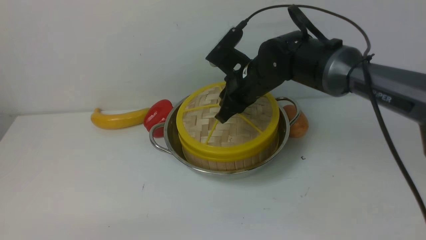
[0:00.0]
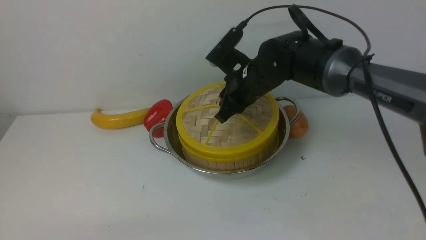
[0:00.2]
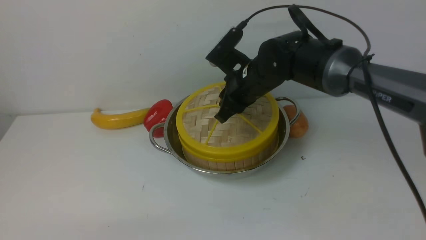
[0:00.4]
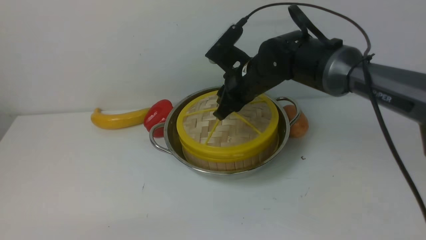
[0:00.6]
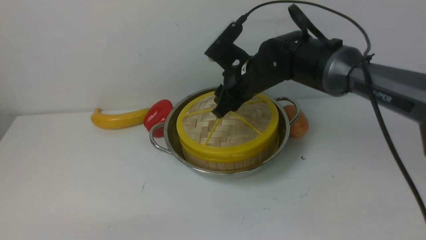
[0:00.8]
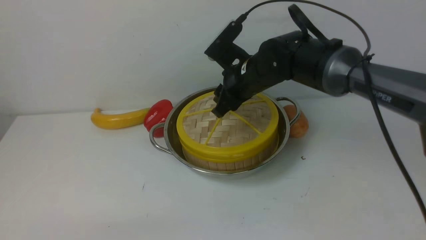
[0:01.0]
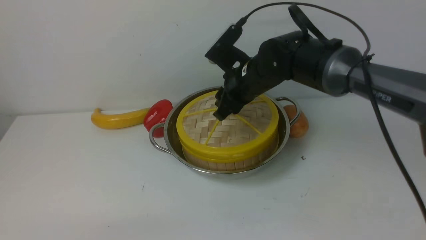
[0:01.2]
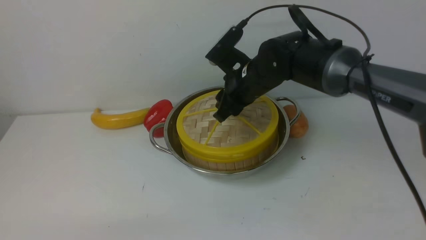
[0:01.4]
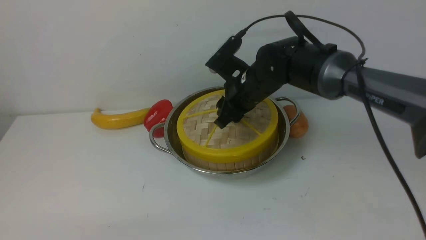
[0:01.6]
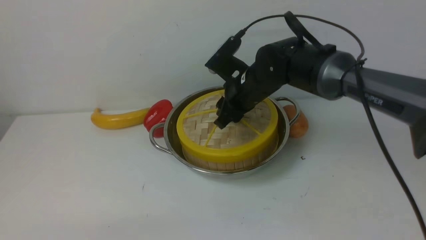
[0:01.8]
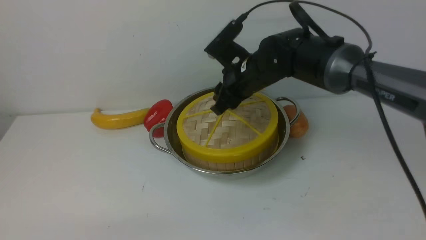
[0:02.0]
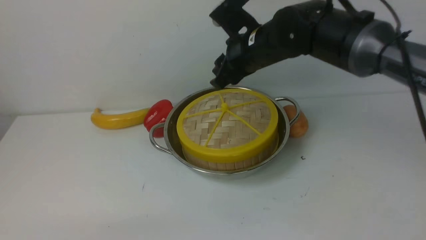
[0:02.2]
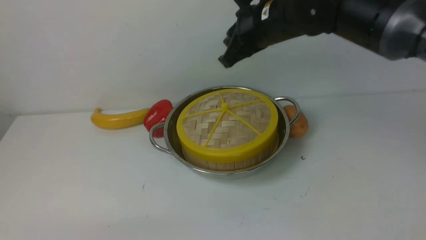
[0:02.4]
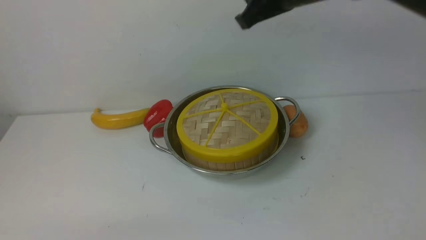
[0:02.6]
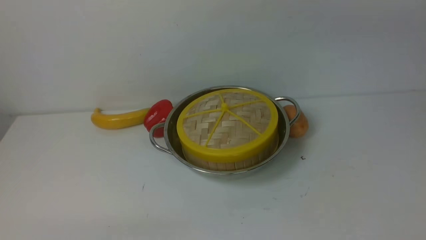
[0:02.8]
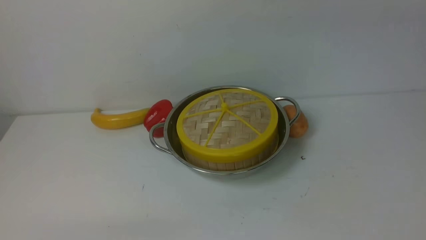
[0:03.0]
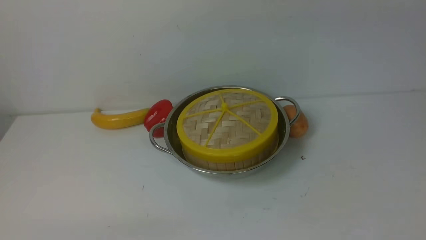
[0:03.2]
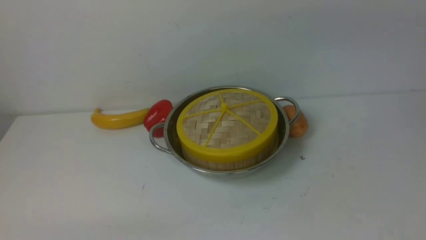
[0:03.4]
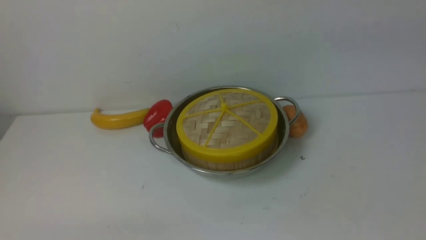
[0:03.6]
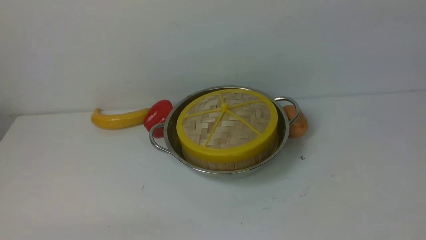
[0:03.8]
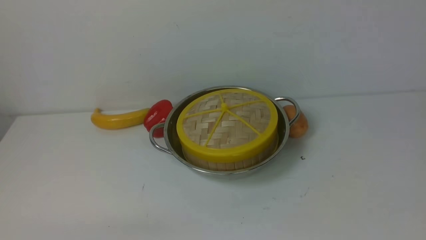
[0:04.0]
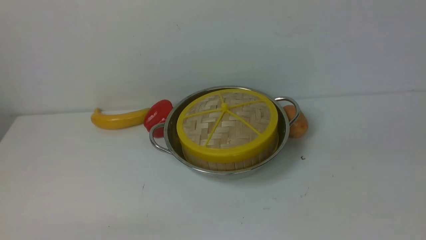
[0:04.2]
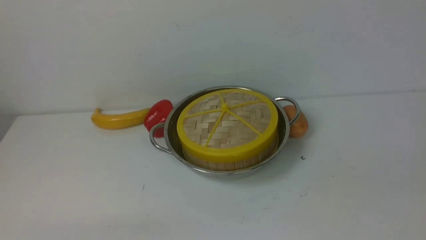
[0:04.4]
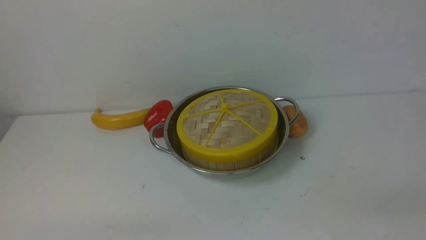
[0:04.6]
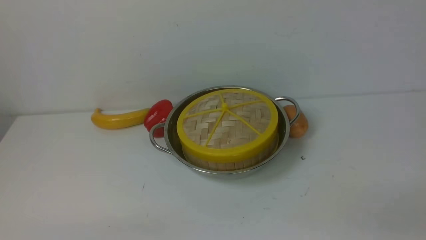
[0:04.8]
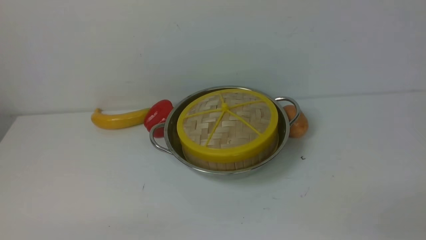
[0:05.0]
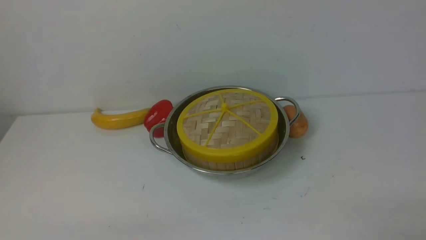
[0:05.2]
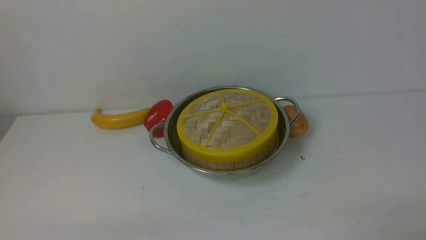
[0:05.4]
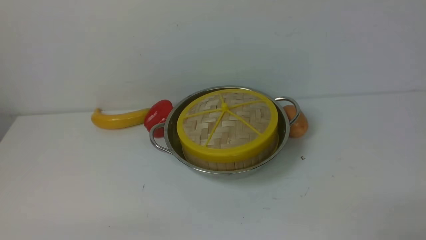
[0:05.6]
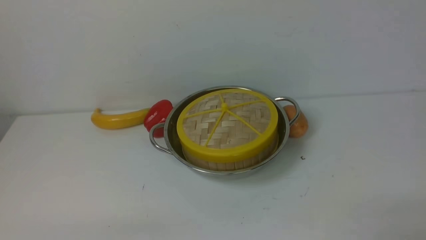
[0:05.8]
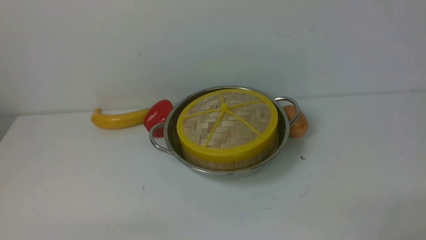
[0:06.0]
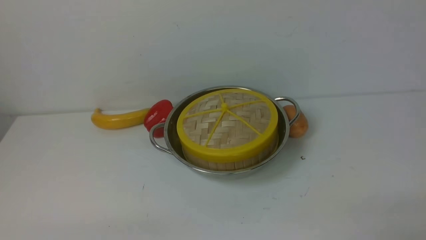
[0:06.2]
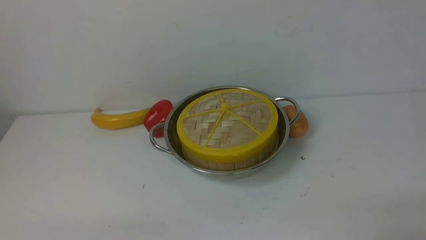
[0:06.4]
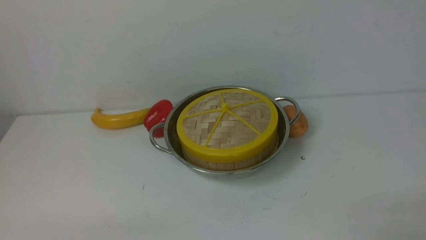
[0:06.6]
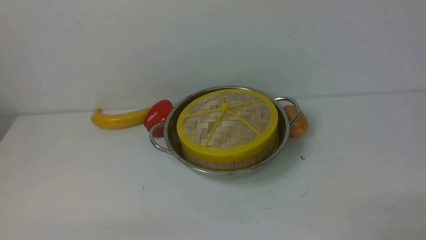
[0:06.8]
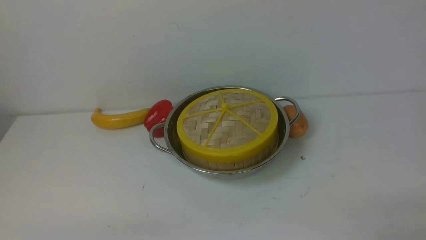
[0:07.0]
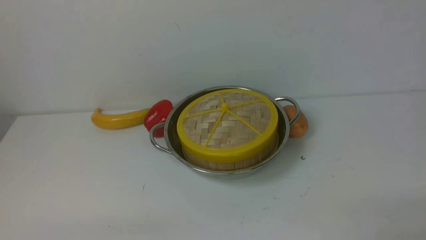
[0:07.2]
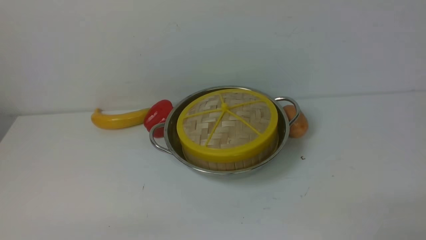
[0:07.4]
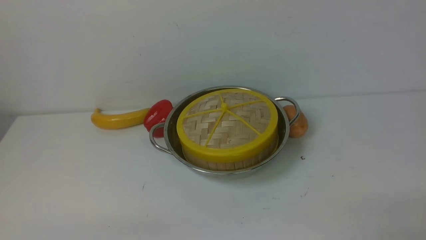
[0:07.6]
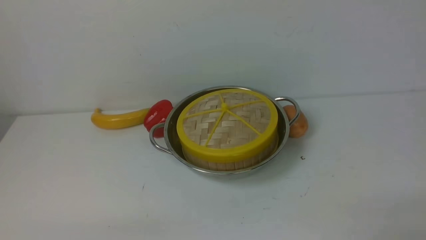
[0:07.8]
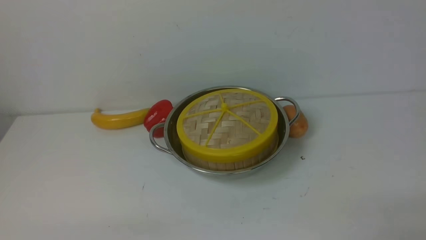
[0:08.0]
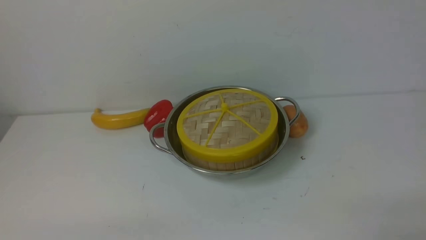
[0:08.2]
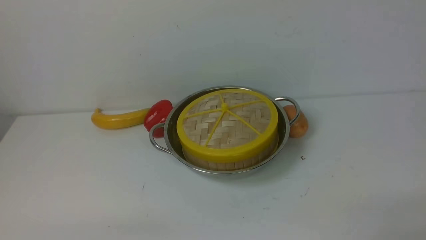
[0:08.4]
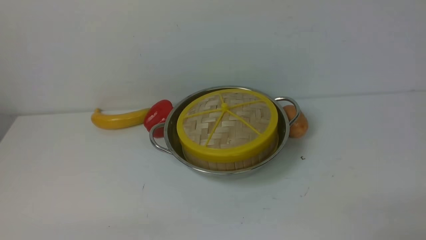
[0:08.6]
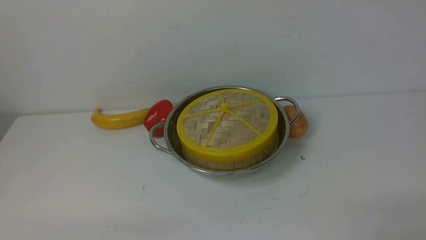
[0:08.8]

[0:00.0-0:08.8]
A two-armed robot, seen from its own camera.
Task of the whole recording: place the steamer in the pot on the white table, and put the lid on the steamer.
Step, 0:00.0 to 0:02.4: use the right arm to place the steamer lid on the steamer.
0:00.0 to 0:01.4: The right gripper opens its fingers.
0:01.4 to 0:03.0: The right gripper is displaced upward by some 25 cm, and closes its fingers.
0:05.8 to 0:08.8: The two grippers keep their place.

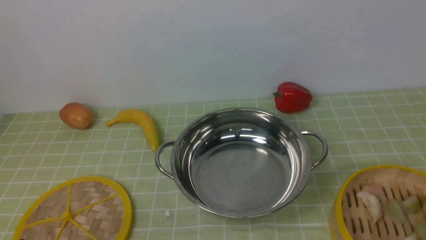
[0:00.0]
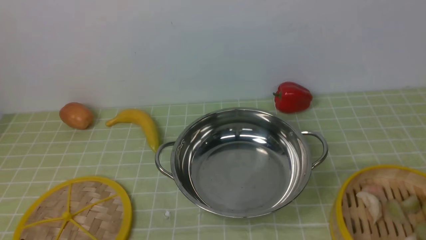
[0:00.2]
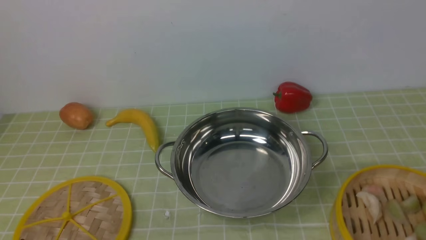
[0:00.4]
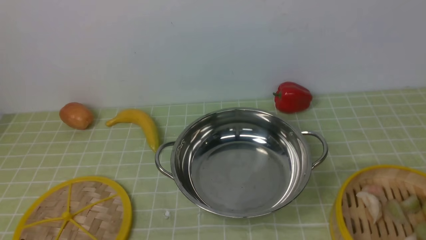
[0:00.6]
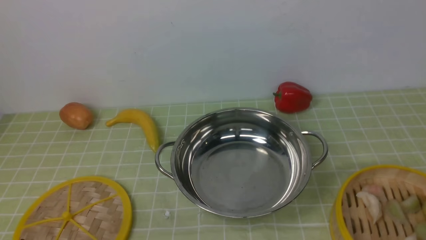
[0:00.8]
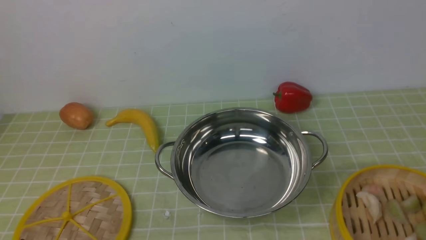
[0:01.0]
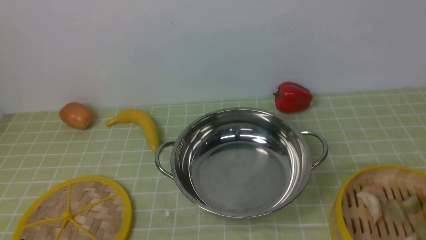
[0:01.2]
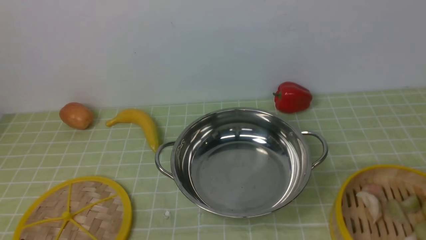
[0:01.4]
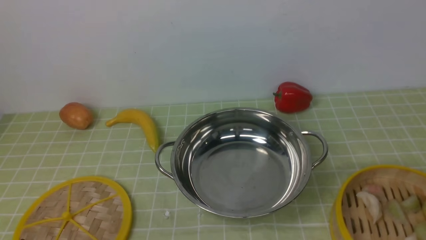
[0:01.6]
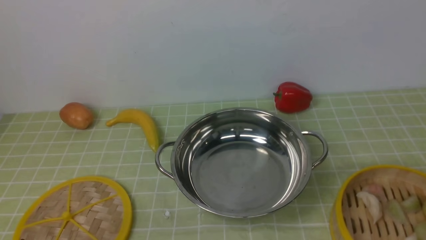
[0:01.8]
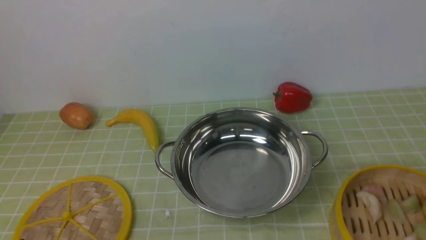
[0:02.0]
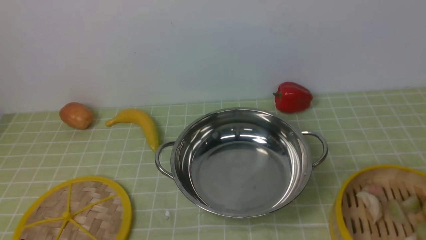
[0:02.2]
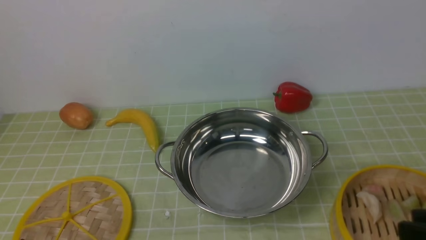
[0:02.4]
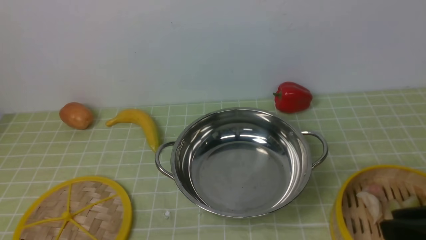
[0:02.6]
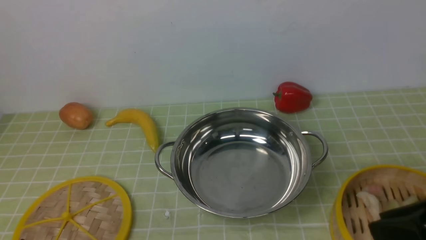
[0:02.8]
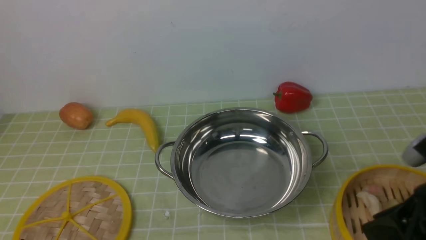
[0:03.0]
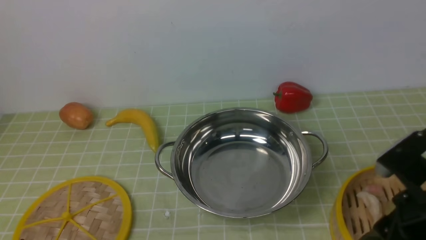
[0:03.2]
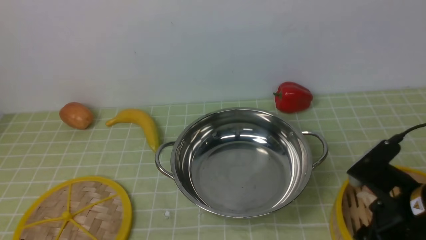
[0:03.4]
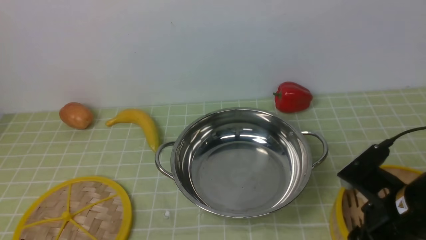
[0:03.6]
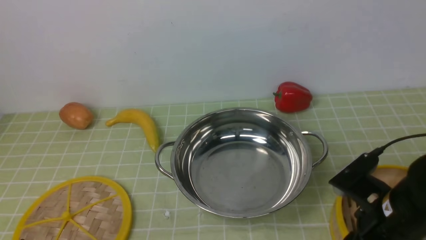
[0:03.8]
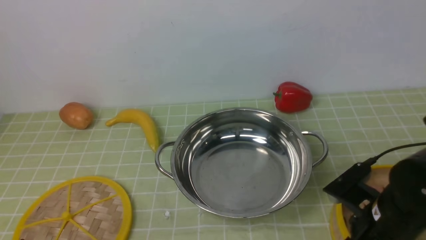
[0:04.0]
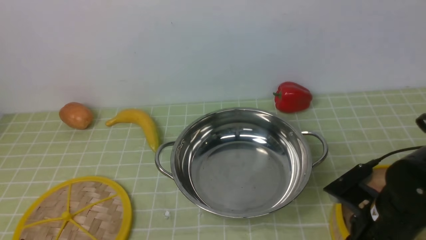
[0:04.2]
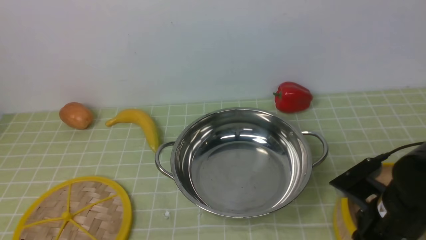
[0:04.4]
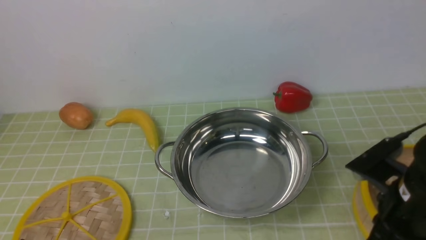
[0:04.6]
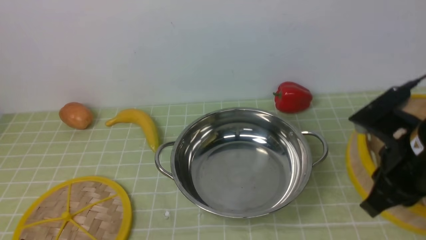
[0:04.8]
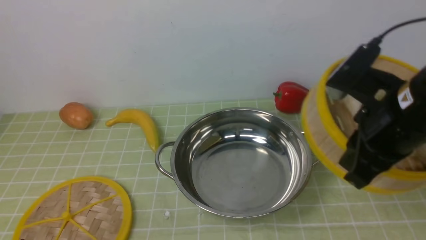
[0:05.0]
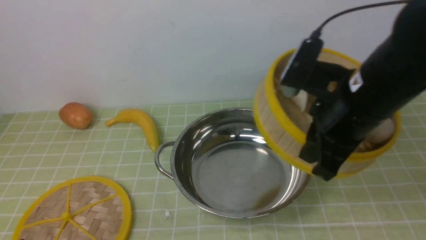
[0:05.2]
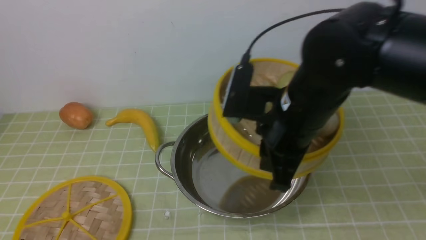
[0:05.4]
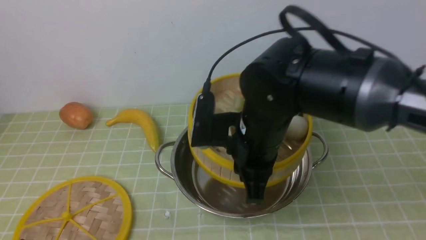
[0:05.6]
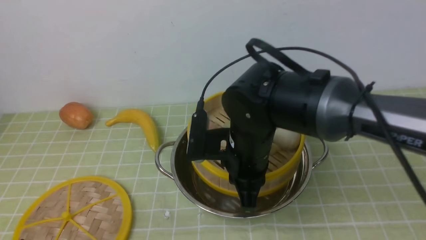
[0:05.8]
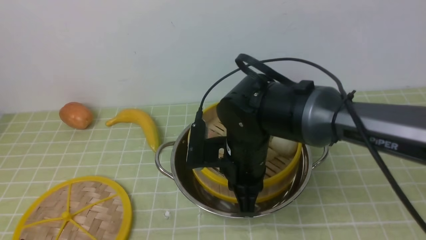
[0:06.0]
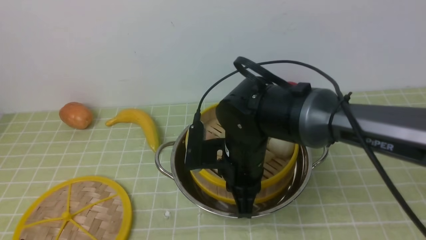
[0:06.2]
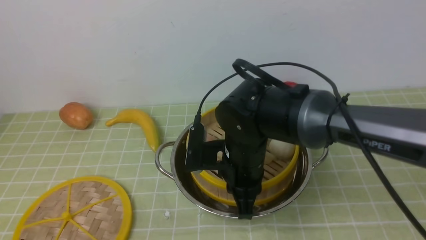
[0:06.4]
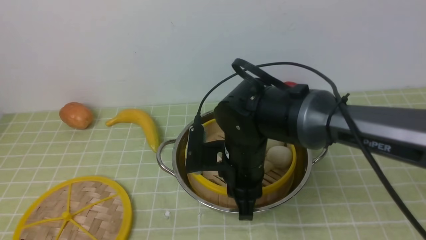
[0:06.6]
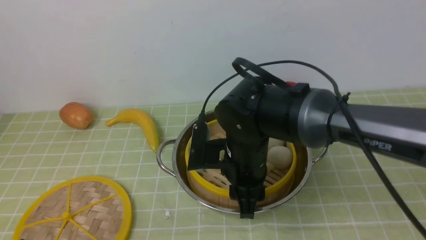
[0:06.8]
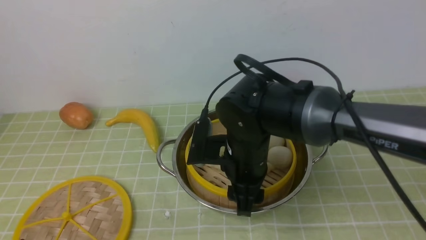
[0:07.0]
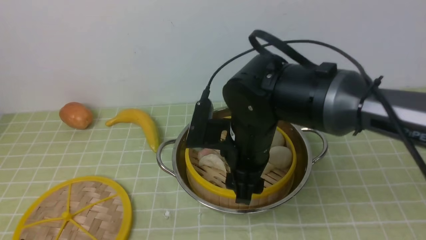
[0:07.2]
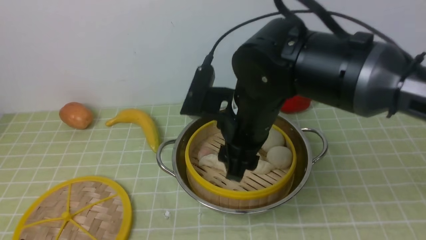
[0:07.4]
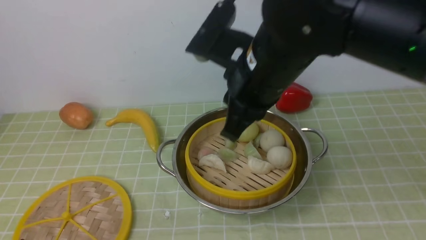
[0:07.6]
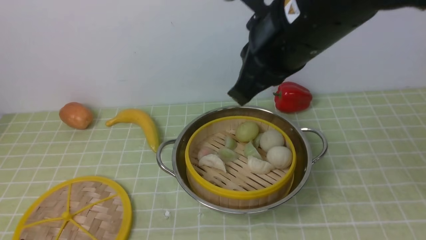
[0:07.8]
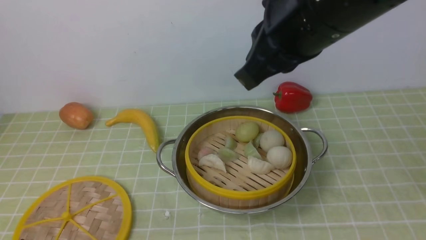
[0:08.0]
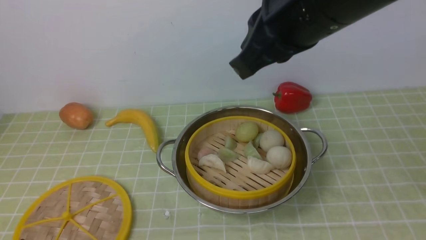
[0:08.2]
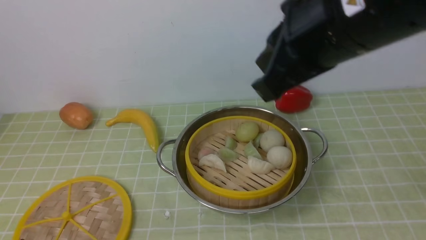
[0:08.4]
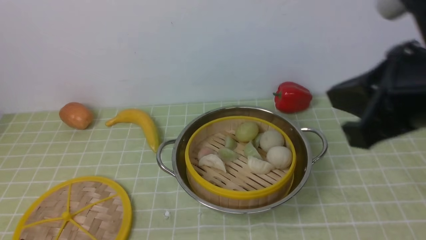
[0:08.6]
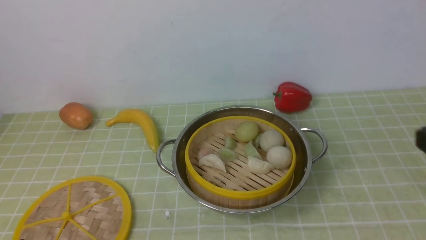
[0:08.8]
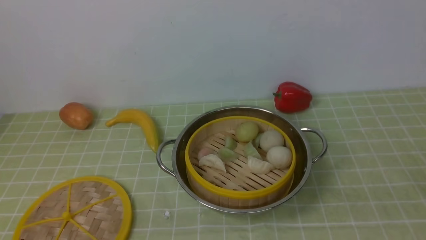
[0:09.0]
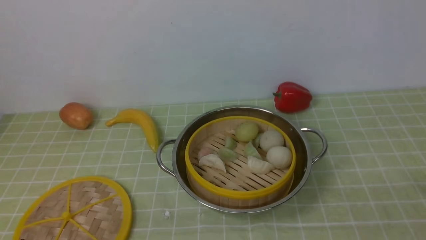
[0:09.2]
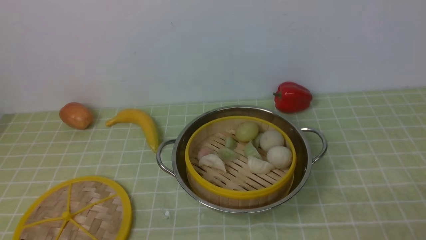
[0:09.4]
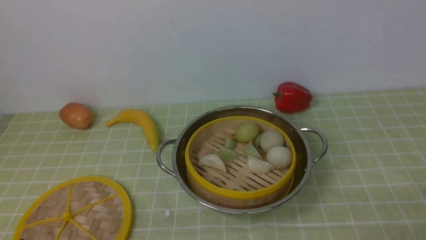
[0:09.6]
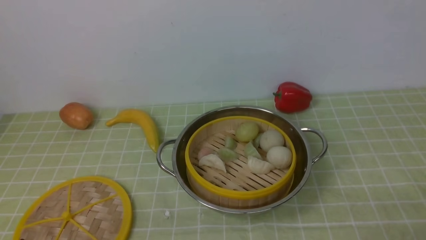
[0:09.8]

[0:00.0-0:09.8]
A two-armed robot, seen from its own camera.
Task of the whole recording: place the steamer in the pot on the green tablecloth, and put the lid on the steamer.
Step, 0:00.0 to 0:05.0: use the right arm to lift the steamer closest to it.
Step, 0:05.2 to 0:08.2: use the right arm to put the steamer into the iron steamer pot in the middle.
0:01.4 to 0:02.8: The right gripper travels forward and to the left by approximately 10 cm.
0:02.8 to 0:04.2: The right gripper moves downward, forward and to the left, approximately 15 cm.
0:04.2 to 0:05.6: The right gripper heads to the left, upward and forward, covering roughly 20 cm.
0:05.6 to 0:07.0: The right gripper opens.
0:07.0 to 0:08.4: The right gripper heads upward and to the right, covering about 25 cm, and closes.
0:08.4 to 0:09.8: The right gripper travels downward, to the right and backward by roughly 35 cm.
